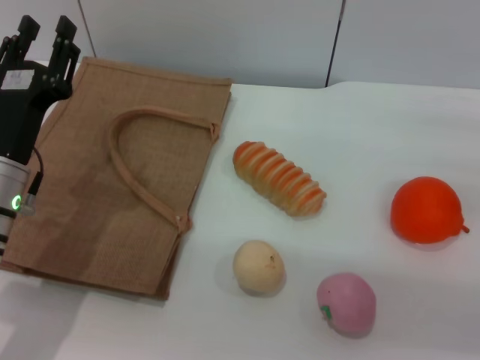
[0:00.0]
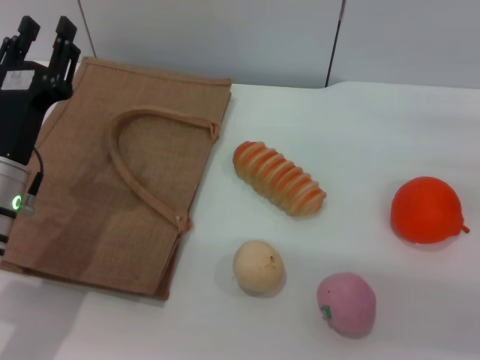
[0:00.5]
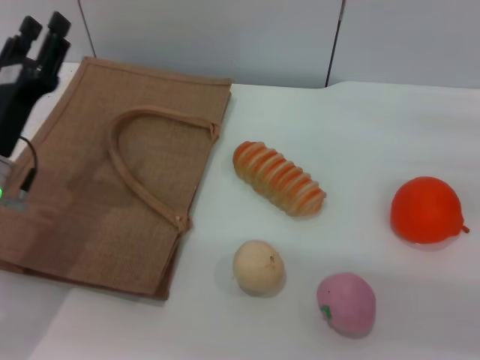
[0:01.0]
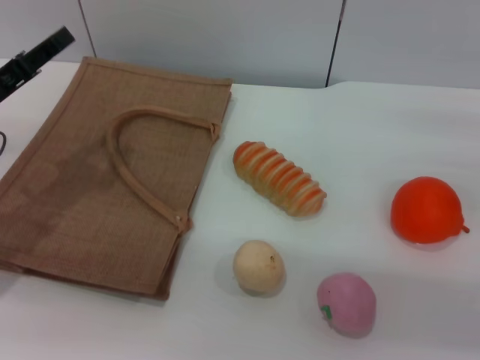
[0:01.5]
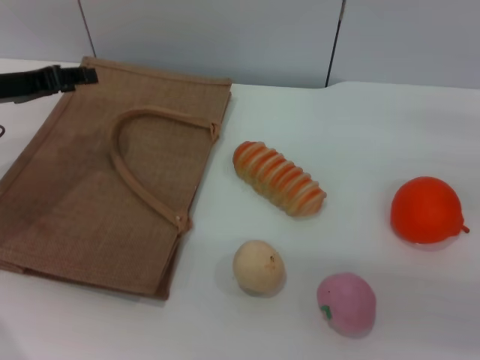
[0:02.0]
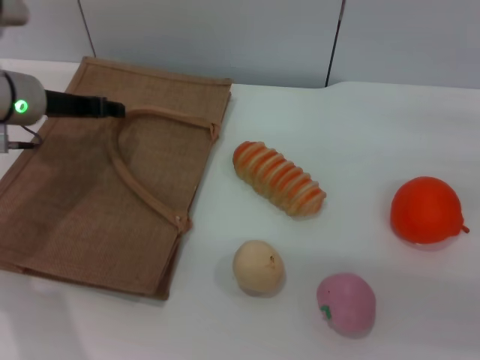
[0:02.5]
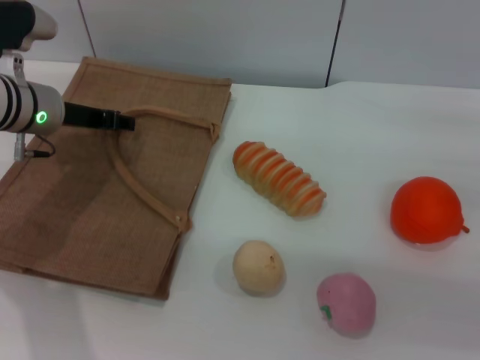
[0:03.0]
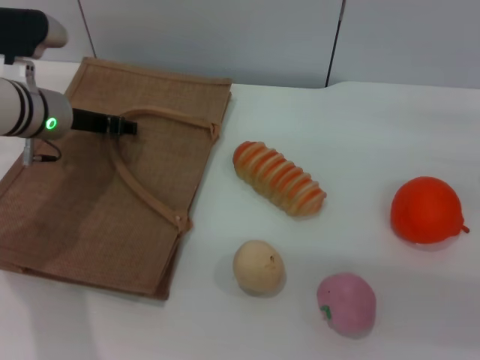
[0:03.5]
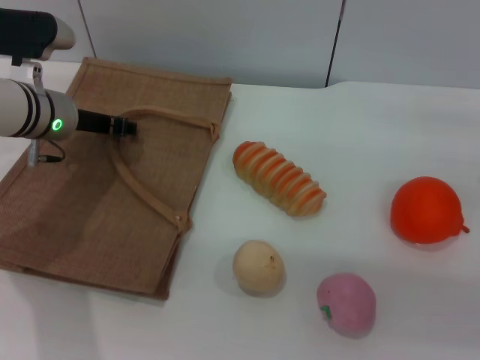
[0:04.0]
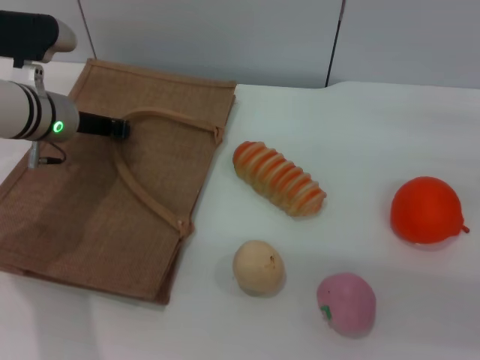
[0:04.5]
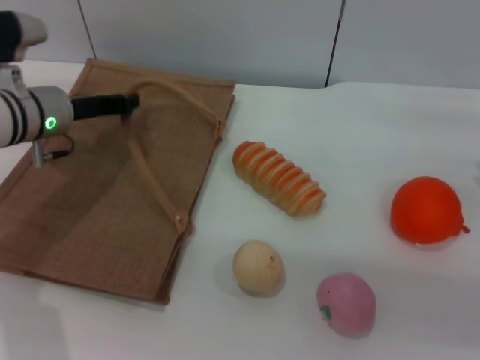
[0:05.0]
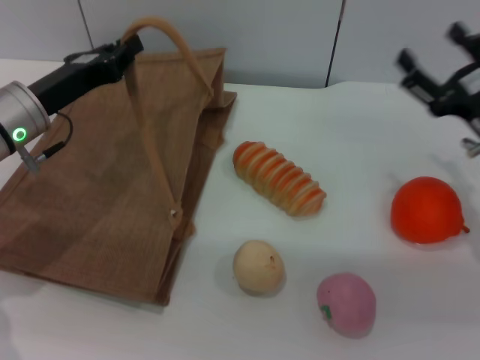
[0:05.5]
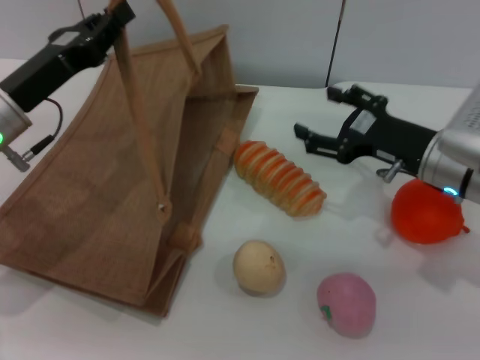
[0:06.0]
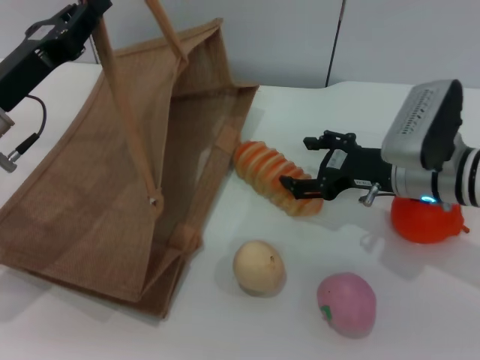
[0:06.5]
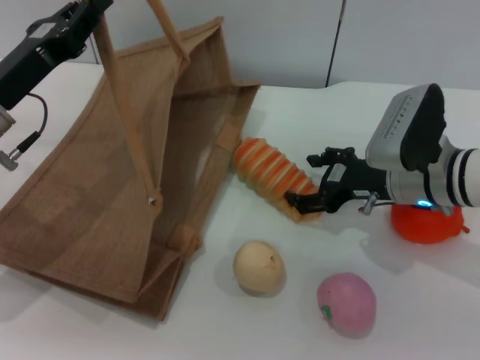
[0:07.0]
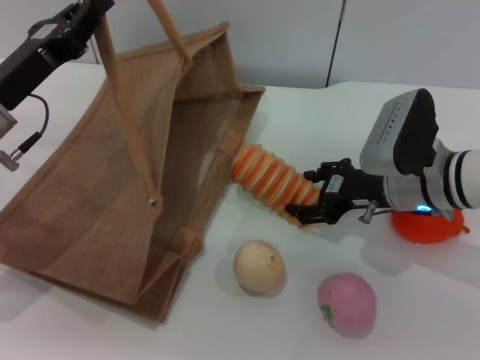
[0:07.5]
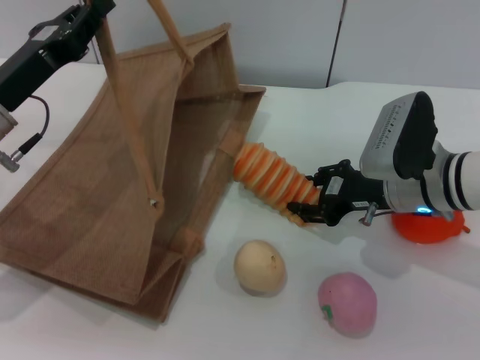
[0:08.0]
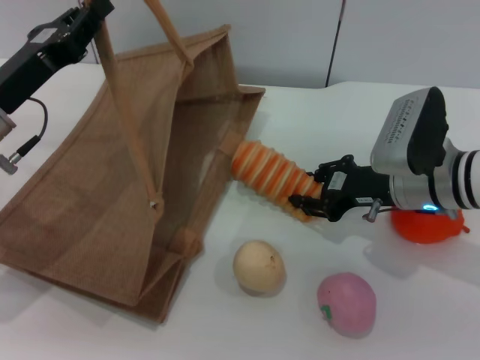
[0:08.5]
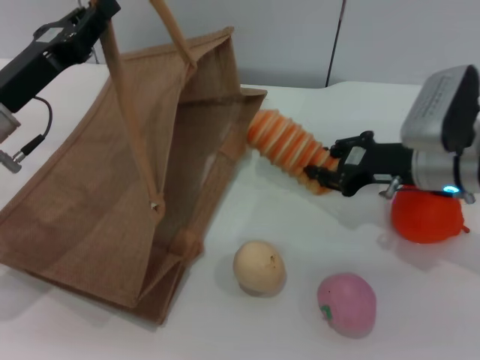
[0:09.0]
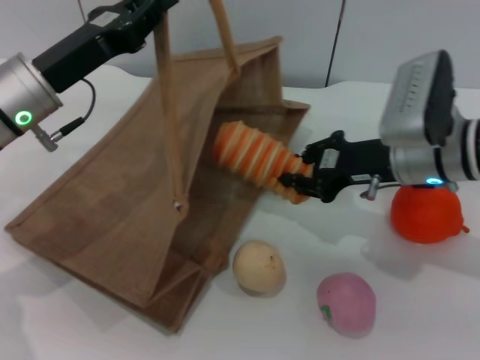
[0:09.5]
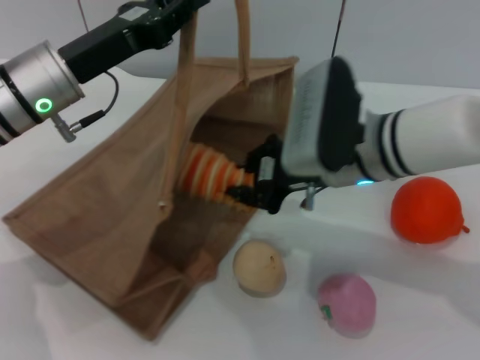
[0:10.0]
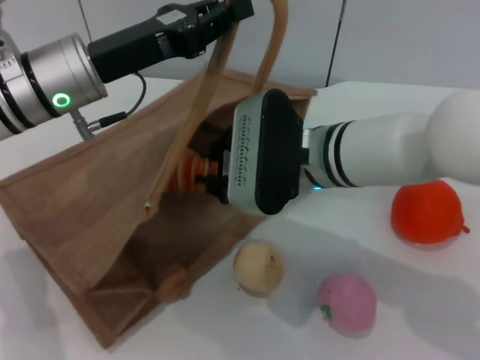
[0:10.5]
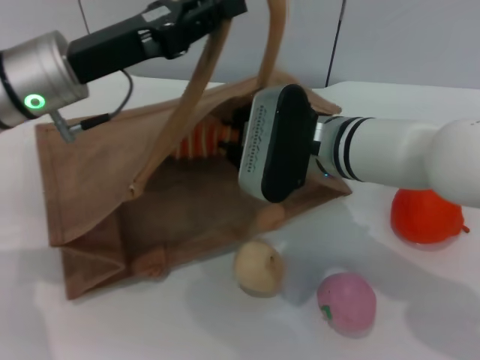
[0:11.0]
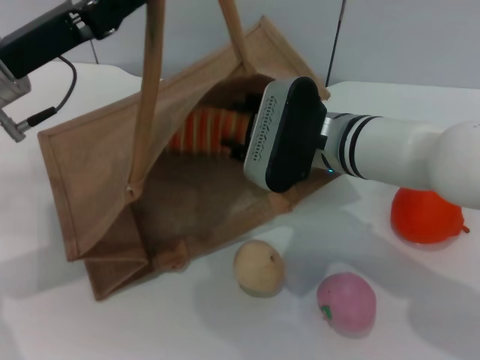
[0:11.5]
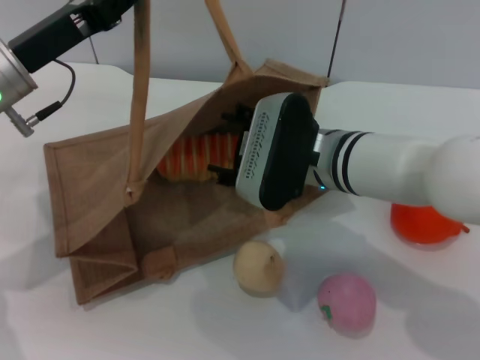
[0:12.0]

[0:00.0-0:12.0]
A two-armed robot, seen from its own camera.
Task of the whole recording: pick up the bread and egg yolk pastry from the table and place it in the brown handbag.
Step, 0:00.0 to 0:05.0: Lift the woven bag with the left gripper to open it.
Step, 0:05.5 to 0:09.0: Pick up the bread with the right gripper.
0:00.0 to 0:02.0: The left gripper travels forward, to the left and upward by some 15 cm.
0:02.0 to 0:04.0: The left gripper is displaced to the right by some 10 cm.
0:04.0 to 0:06.0: The left gripper shifts approximately 10 cm backward, and closes; the right gripper heads to the left, covering some 10 cm.
0:06.0 to 0:08.0: The right gripper closes.
0:08.0 to 0:10.0: The left gripper goes some 5 cm to the right. The right gripper is displaced to the left and upward by approximately 10 cm, and closes up.
0:10.0 to 0:12.0: The right gripper opens up.

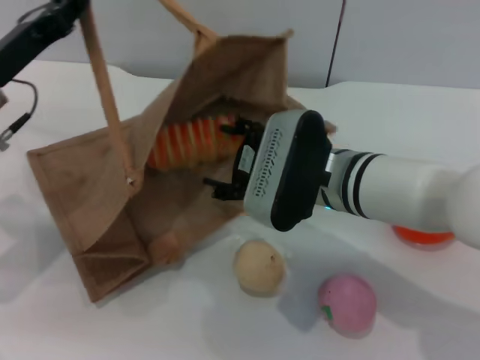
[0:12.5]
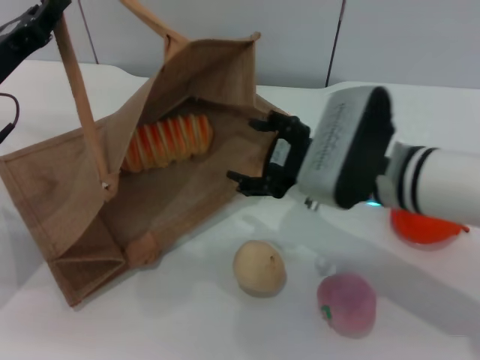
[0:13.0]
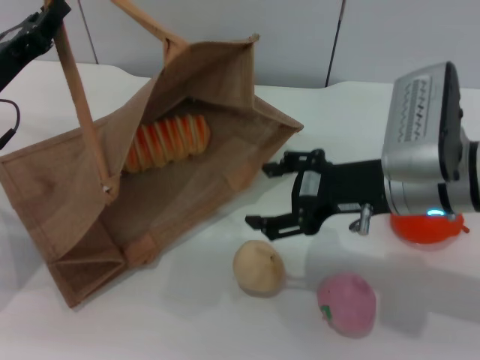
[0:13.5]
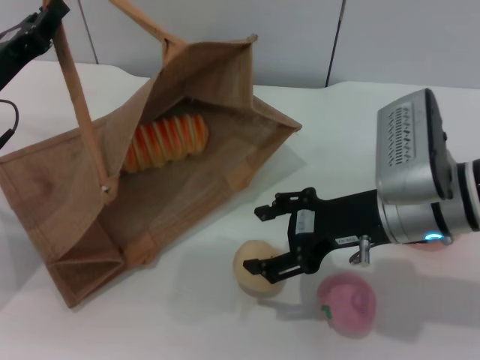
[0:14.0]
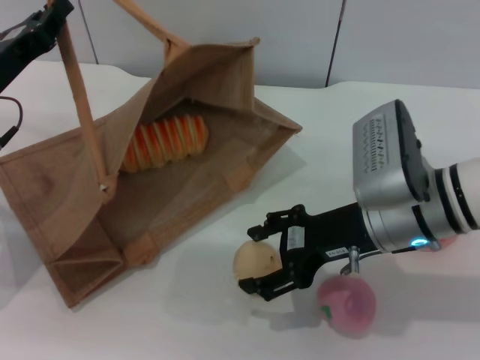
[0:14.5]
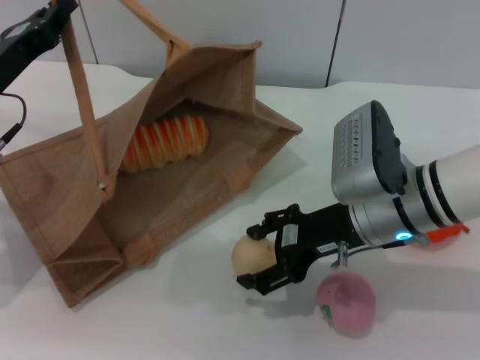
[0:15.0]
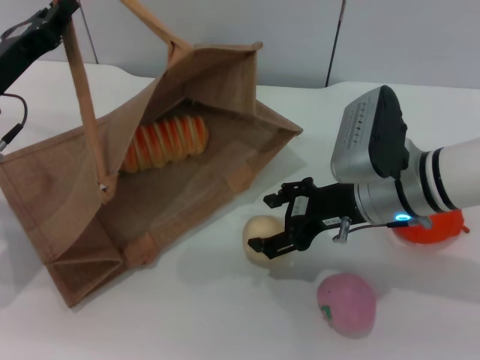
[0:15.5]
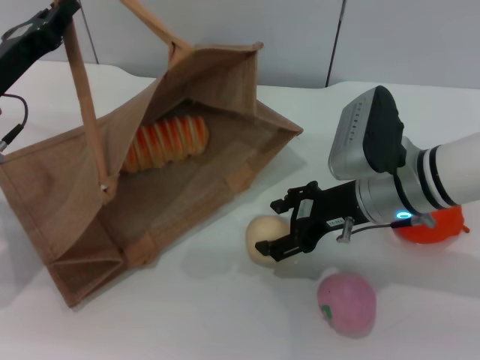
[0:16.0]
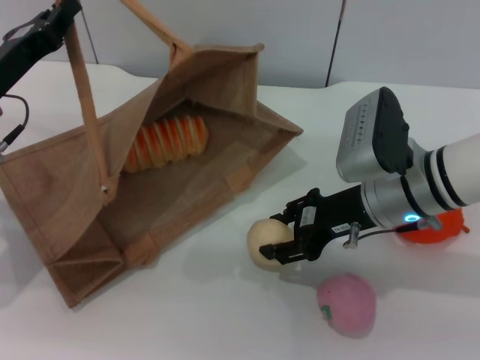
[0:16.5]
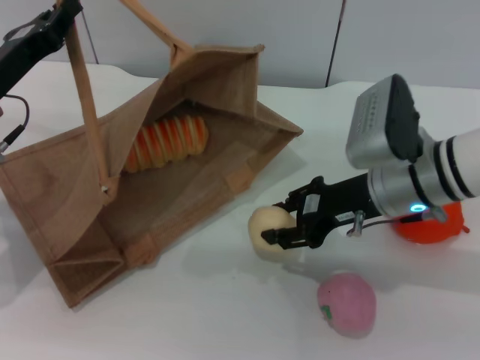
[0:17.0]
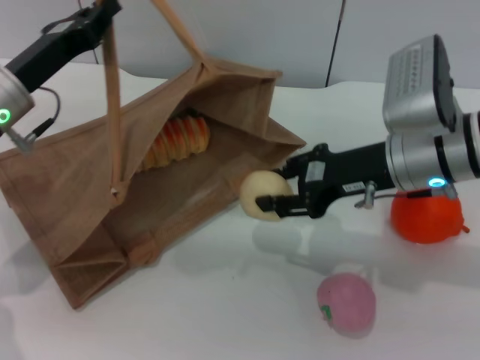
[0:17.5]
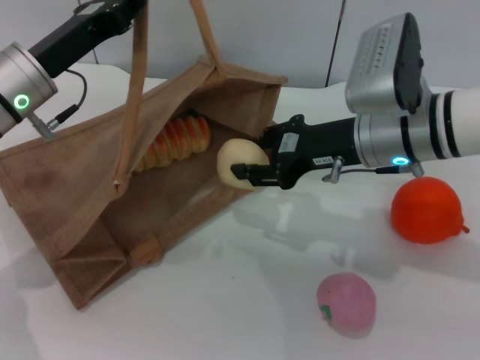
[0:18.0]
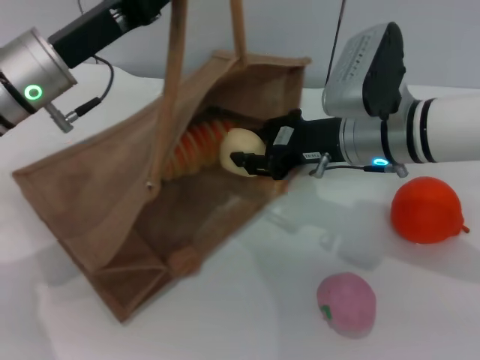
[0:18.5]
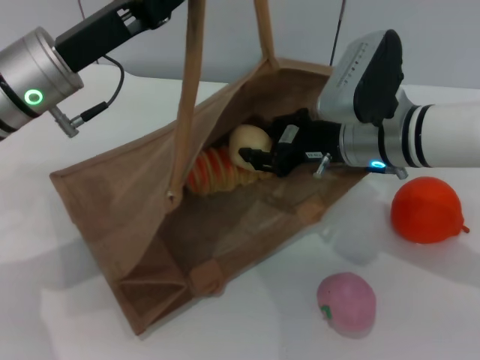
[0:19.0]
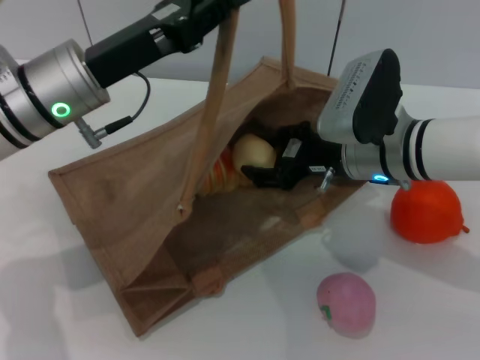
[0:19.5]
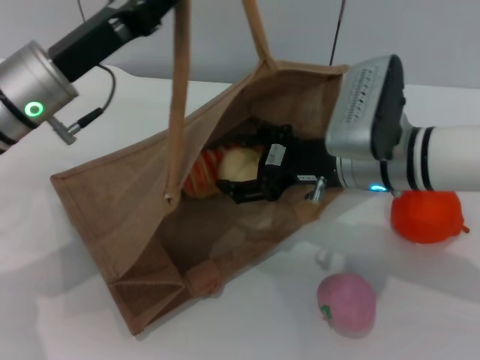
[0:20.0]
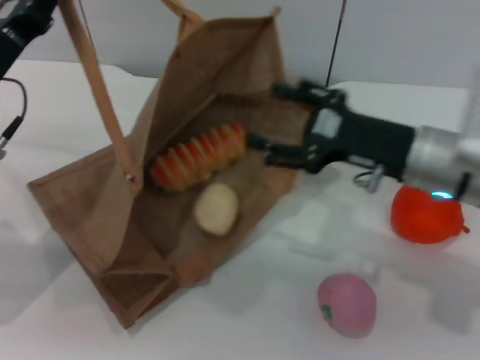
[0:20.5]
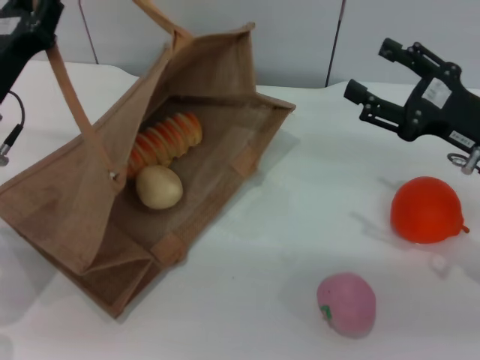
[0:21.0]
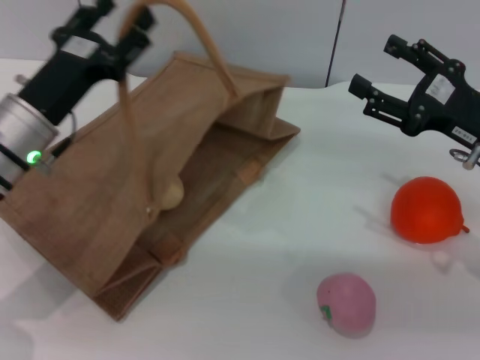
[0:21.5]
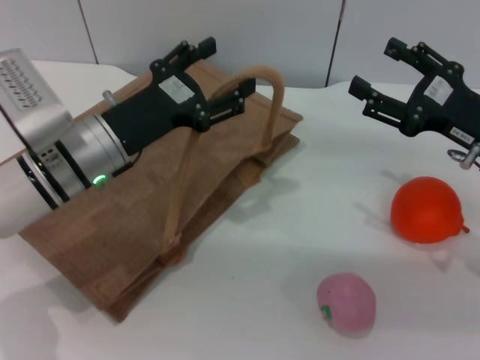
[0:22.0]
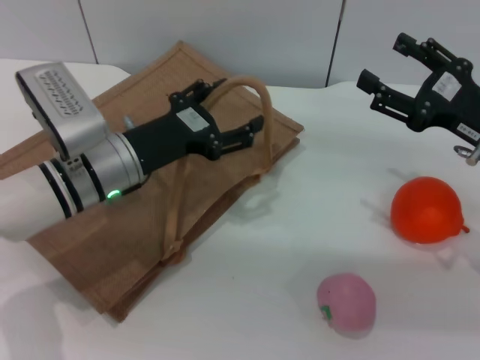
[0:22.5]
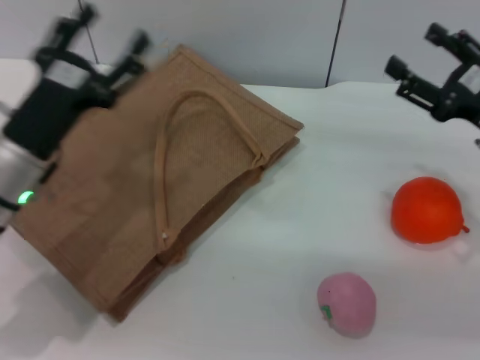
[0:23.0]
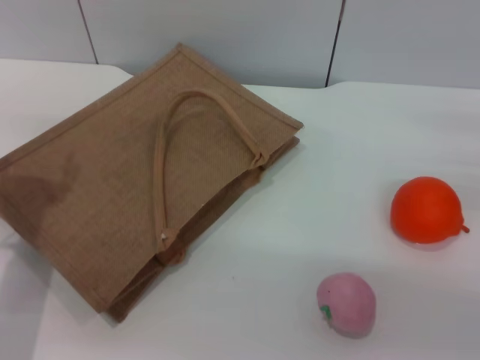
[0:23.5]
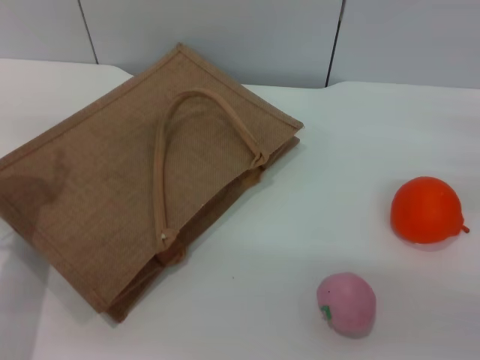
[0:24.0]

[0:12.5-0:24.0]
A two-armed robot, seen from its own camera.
Task of the whole recording: pick up the bread and egg yolk pastry from the table and place it in the brown handbag.
Step, 0:12.5 to 0:17.0: Pick up the egg yolk pastry with the right gripper.
Step, 0:17.5 to 0:20.0: Place the egg yolk pastry into the woven bag with the right gripper.
Step, 0:21.0 to 0:23.0: Lower the woven bag with the left gripper to close it.
0:12.5 to 0:14.5: The right gripper heads to the right, covering about 5 cm.
0:14.5 to 0:16.5: The right gripper closes up.
0:16.5 to 0:18.5: The left gripper is displaced to the right by some 5 cm.
0:18.5 to 0:20.0: The right gripper opens its fingers.
0:20.0 to 0:22.0: The left gripper heads downward, covering some 5 cm, and opens. The right gripper is displaced to the right by some 15 cm.
0:22.0 to 0:24.0: The left gripper goes approximately 10 cm to the left and backward, while the right gripper goes some 10 cm to the right.

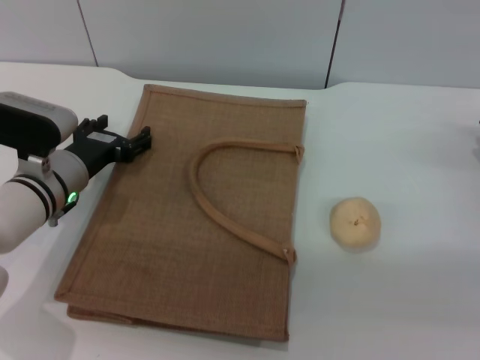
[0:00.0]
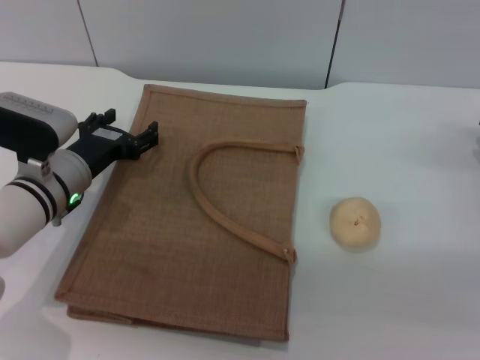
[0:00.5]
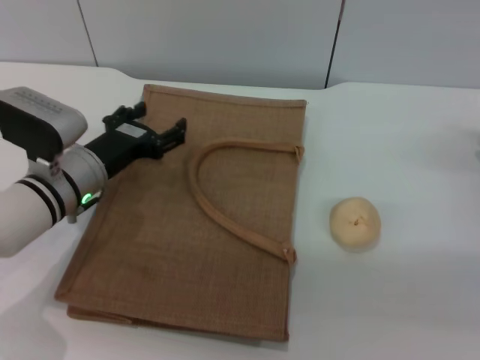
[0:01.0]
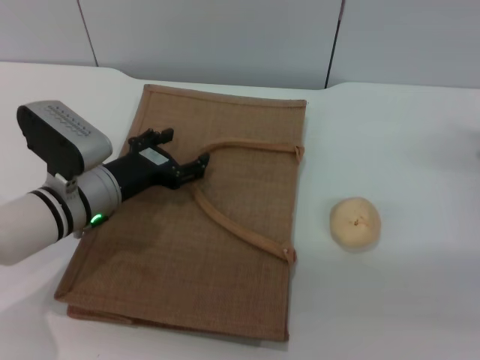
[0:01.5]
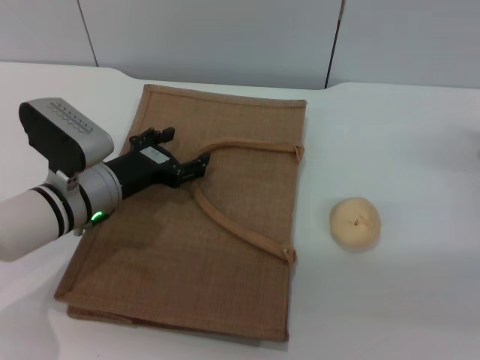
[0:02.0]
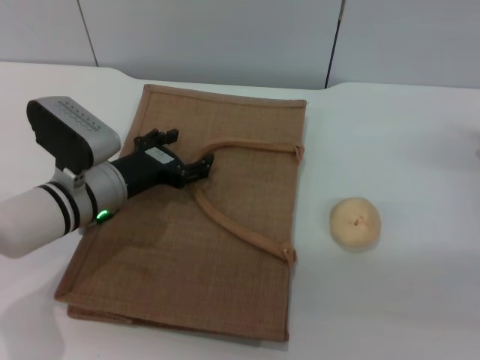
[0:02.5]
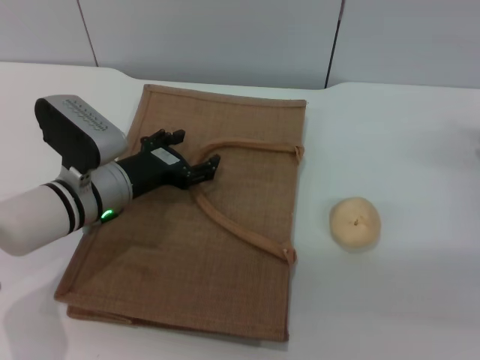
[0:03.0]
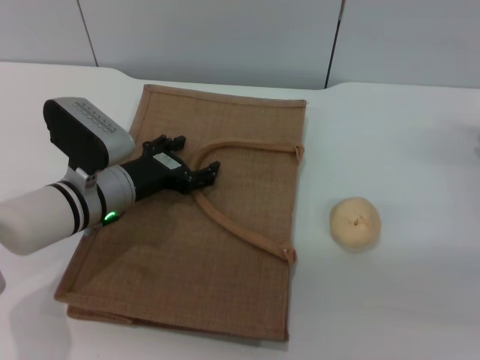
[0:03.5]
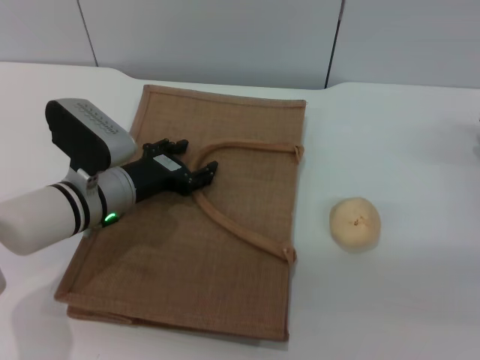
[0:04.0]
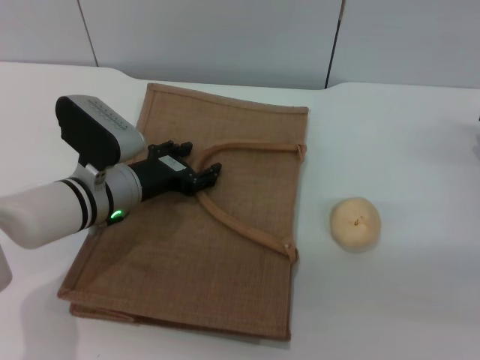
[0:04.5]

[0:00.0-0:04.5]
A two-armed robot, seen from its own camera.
Task of the whole recording: pick up the egg yolk pastry from the table and place it in the brown handbag.
0:02.0 to 0:04.5: The grippers make only small movements.
